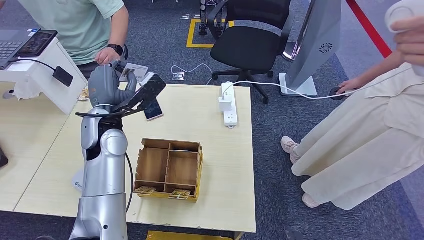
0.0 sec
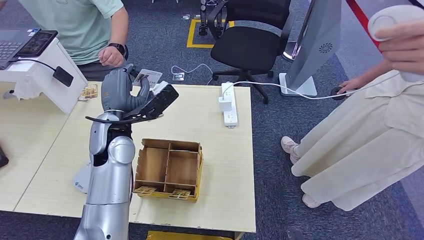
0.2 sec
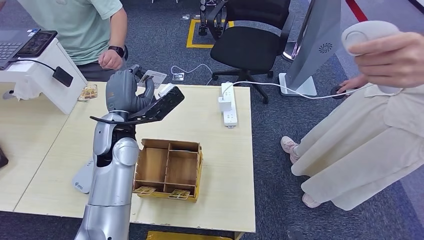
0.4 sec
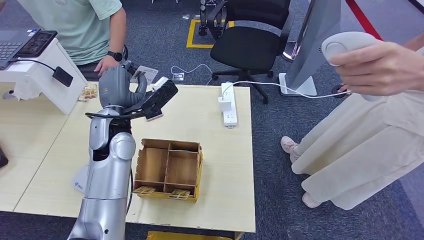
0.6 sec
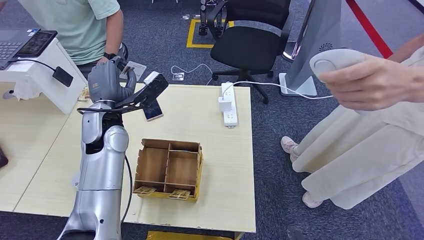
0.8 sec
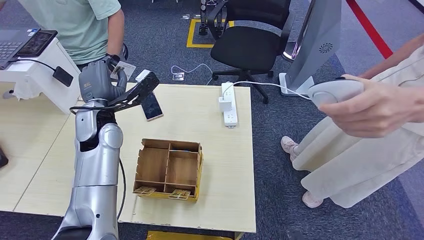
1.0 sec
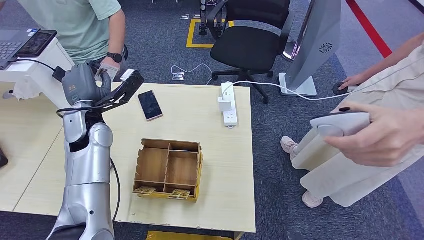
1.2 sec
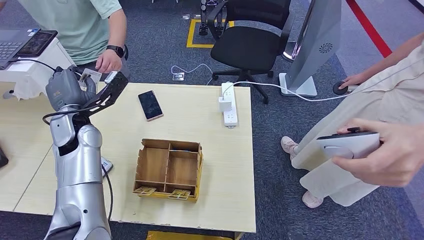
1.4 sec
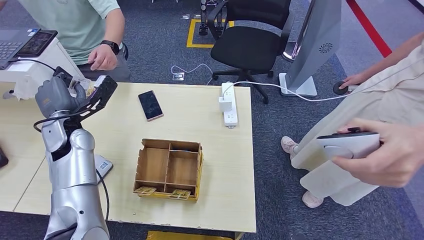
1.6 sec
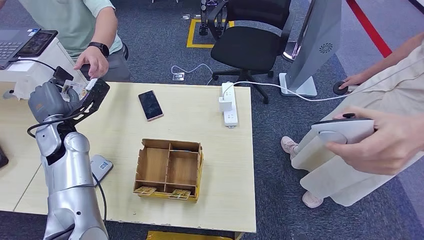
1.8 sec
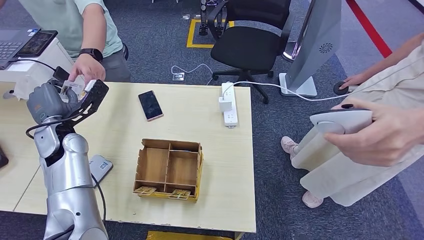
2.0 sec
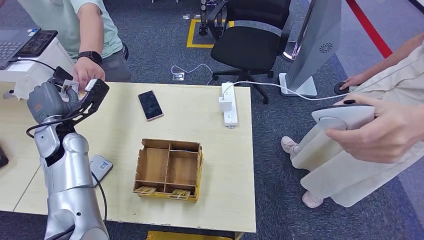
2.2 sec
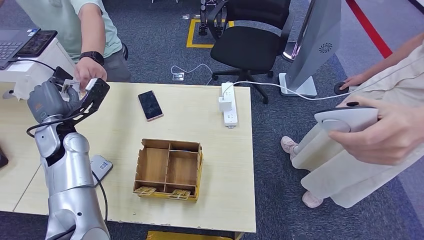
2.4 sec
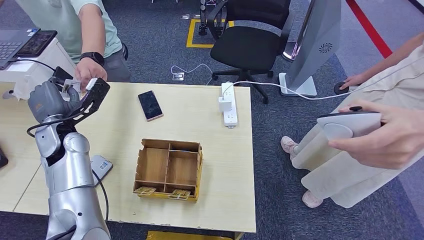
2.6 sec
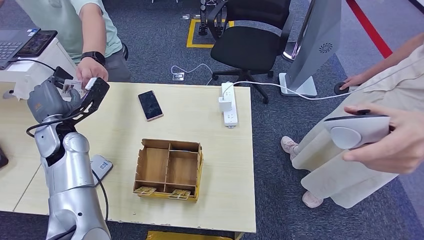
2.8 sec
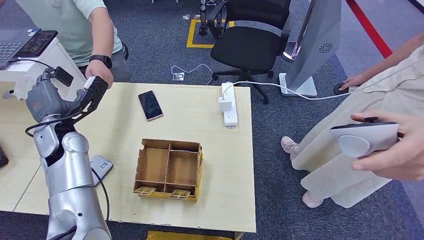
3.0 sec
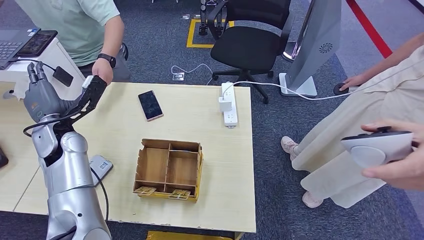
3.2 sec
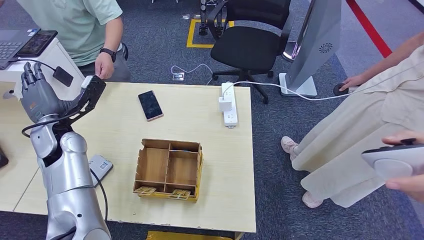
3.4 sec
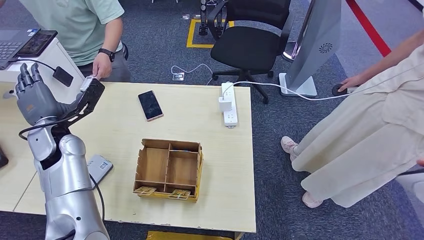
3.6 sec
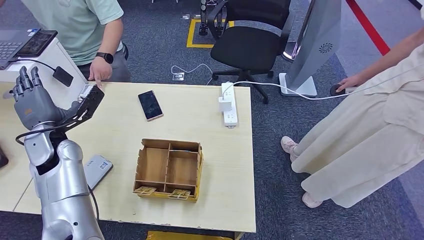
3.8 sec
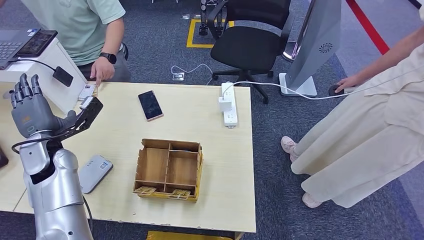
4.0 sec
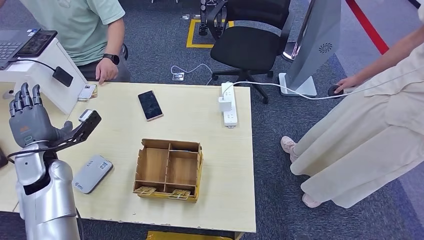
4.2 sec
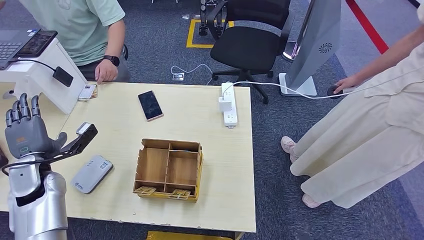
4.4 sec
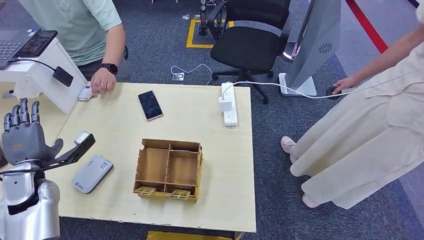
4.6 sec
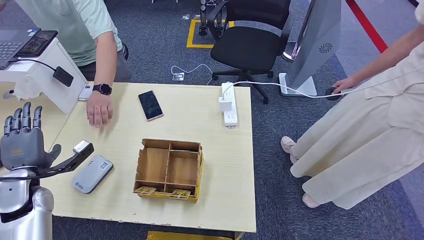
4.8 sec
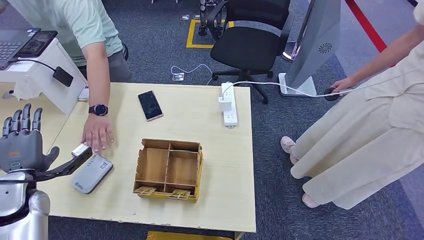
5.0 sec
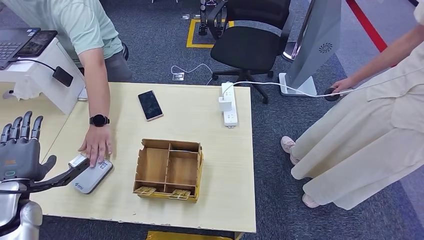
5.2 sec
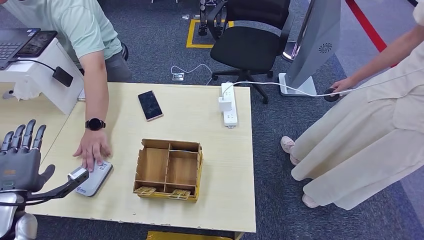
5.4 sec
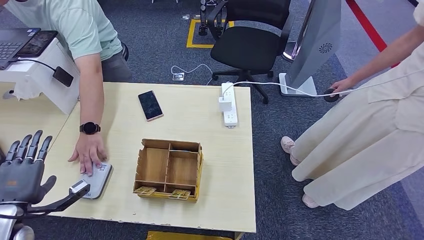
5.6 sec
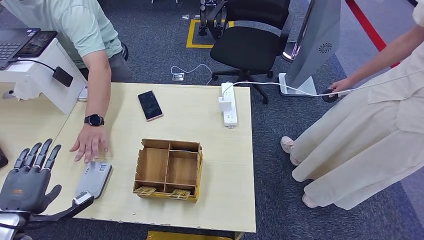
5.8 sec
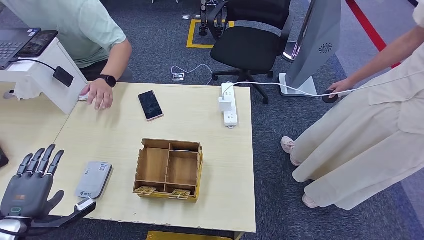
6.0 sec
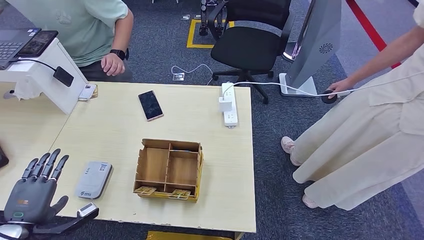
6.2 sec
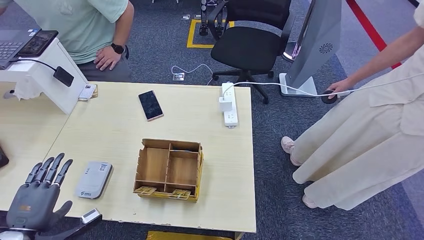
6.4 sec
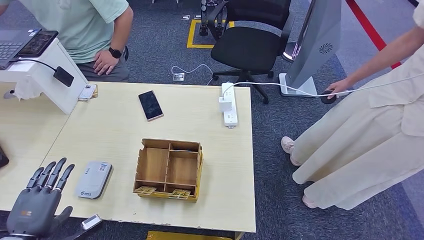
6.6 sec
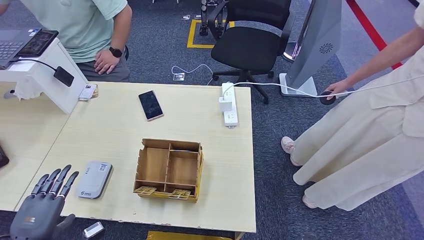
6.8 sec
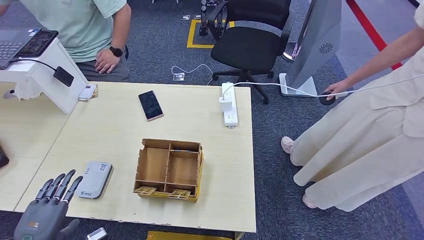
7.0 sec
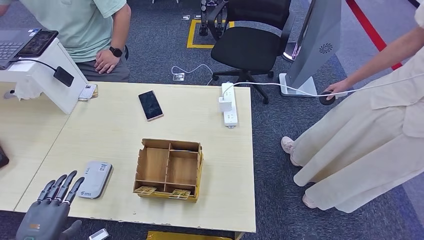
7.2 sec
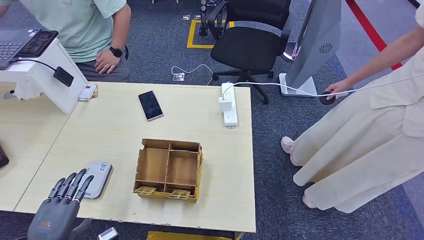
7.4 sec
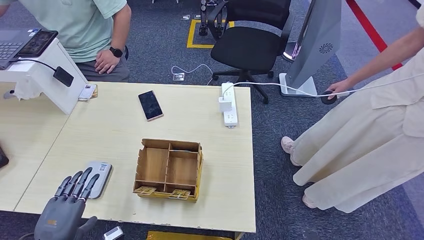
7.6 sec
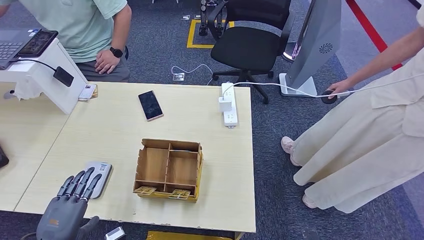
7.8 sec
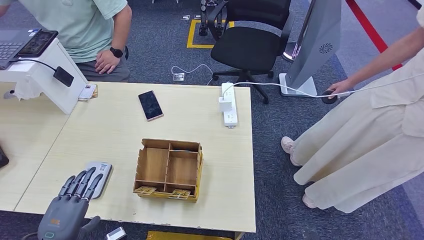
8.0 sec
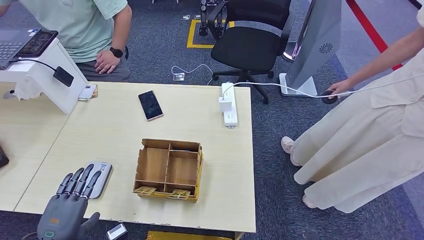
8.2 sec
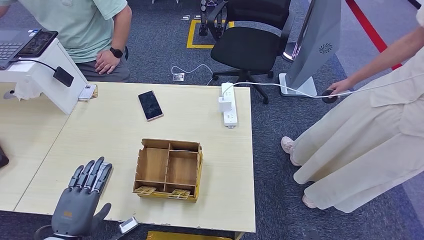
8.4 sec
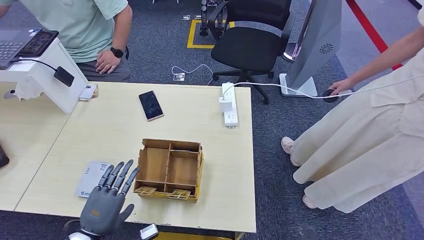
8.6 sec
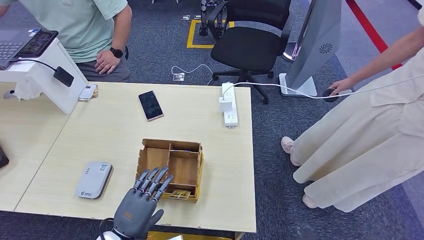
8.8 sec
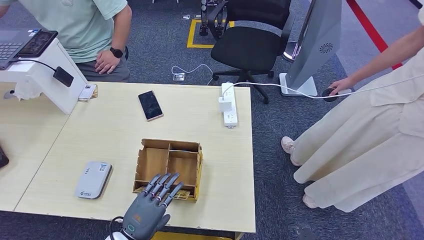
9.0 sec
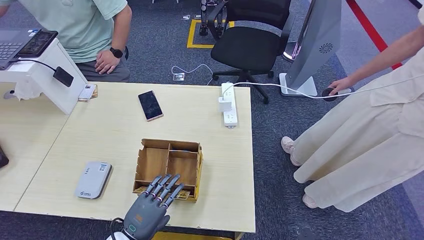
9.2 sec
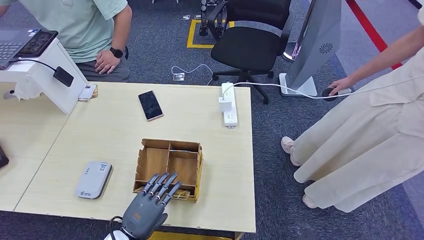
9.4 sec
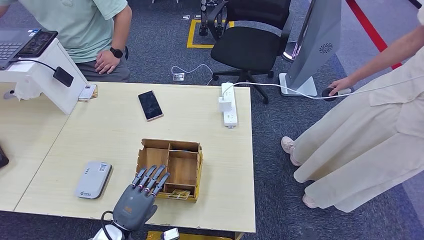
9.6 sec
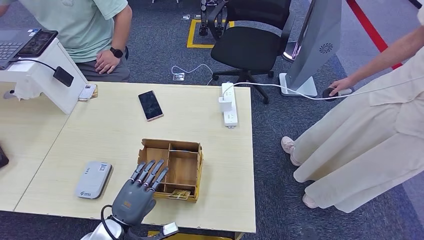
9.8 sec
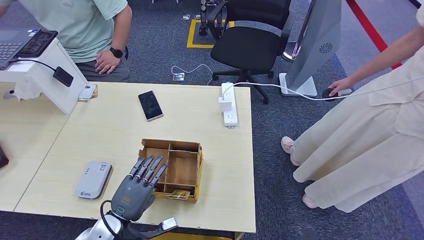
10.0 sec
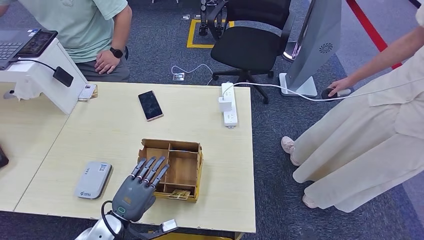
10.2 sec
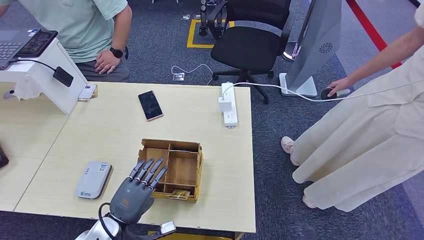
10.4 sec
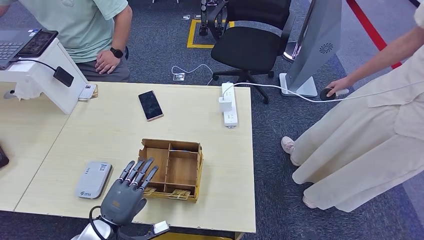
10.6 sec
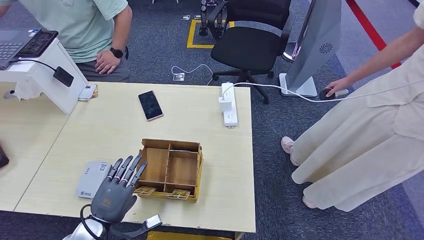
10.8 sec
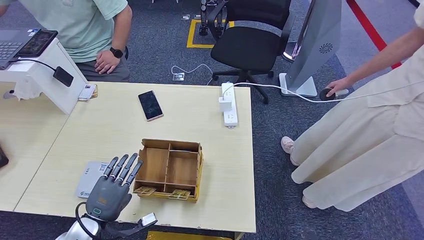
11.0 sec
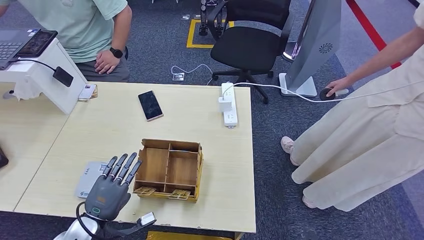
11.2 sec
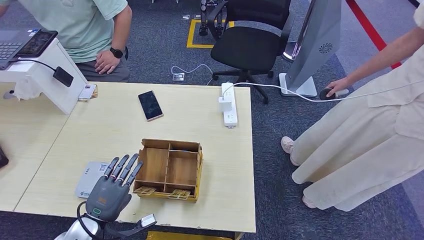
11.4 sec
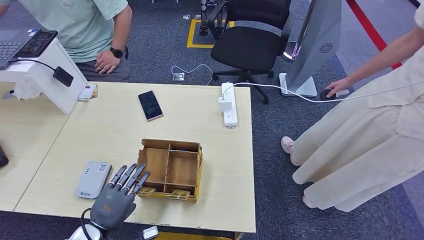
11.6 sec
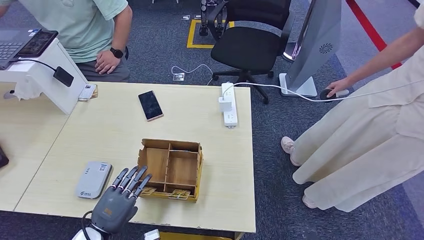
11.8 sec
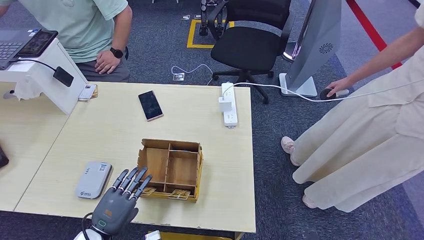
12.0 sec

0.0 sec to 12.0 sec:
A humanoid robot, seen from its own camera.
Step, 0.0 sec to 2.8 sec: Hand the ID card to the person.
1.6 sec to 3.0 sec: The hands move only a little.
3.0 sec to 4.4 sec: The left hand moves backward, downward and to the left, approximately 10 cm.
4.4 sec to 6.0 sec: The left hand moves backward, roughly 15 cm.
6.0 sec to 7.6 sec: The left hand heads to the right, covering about 10 cm.
7.6 sec to 9.0 sec: The left hand is displaced to the right by roughly 15 cm.
9.0 sec to 10.4 sec: The hands stay close to where they were, moving slightly.
10.4 sec to 12.0 sec: The hands stay close to where they were, moving slightly.

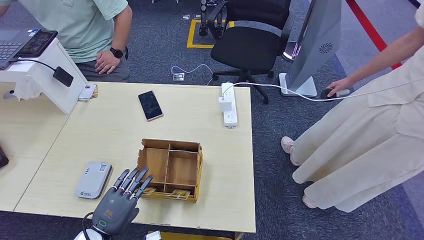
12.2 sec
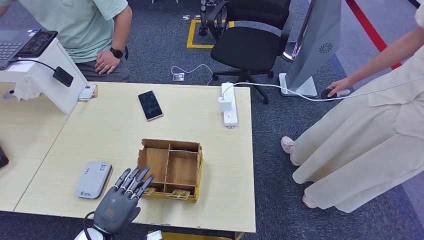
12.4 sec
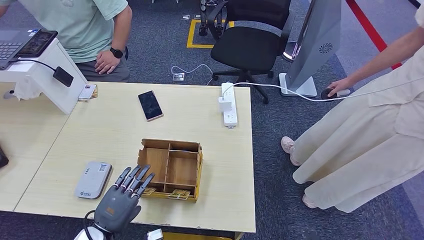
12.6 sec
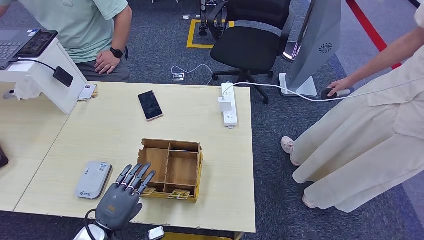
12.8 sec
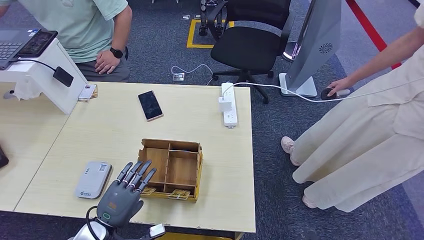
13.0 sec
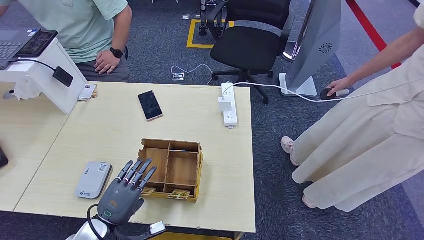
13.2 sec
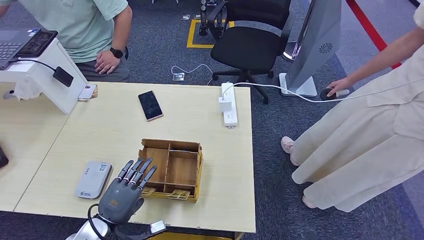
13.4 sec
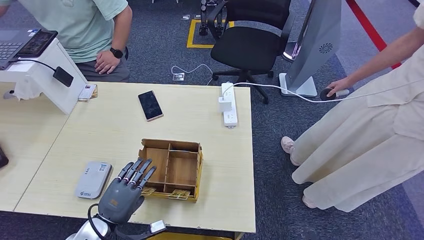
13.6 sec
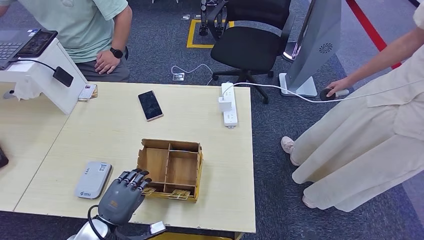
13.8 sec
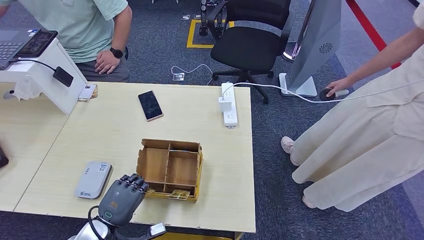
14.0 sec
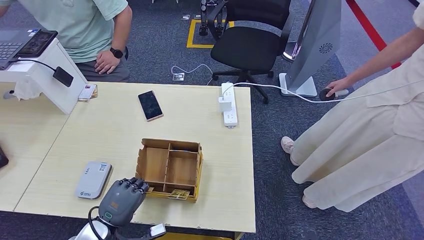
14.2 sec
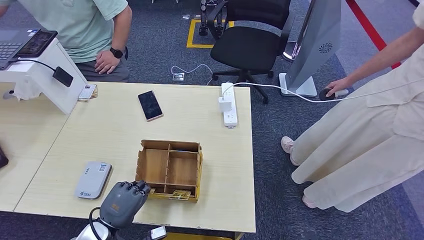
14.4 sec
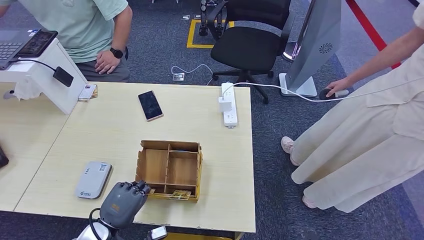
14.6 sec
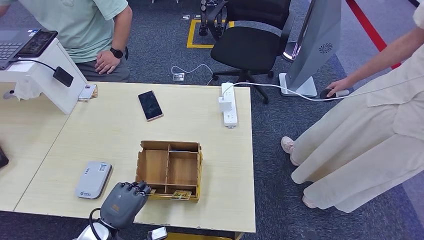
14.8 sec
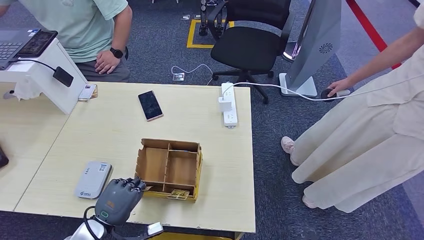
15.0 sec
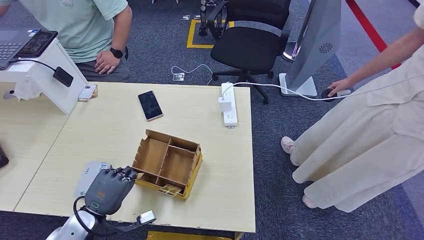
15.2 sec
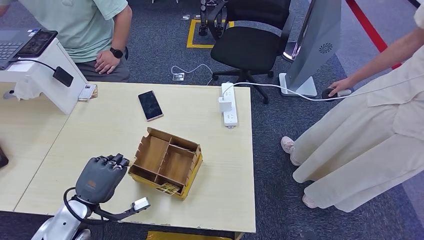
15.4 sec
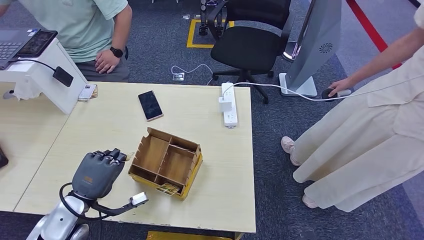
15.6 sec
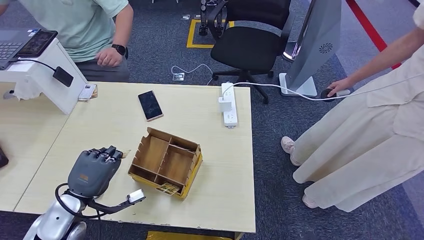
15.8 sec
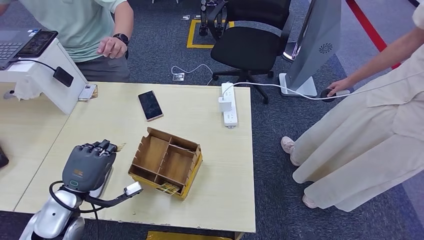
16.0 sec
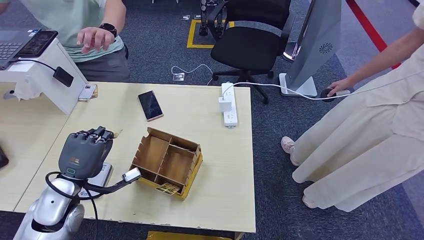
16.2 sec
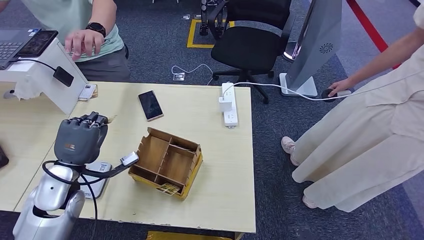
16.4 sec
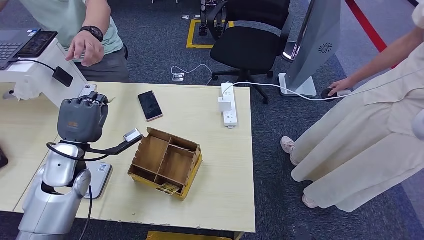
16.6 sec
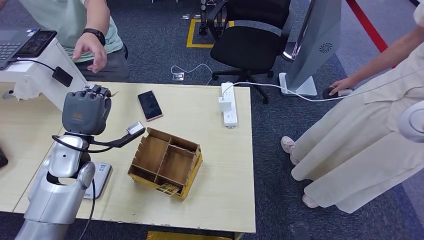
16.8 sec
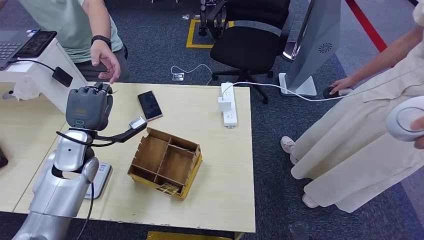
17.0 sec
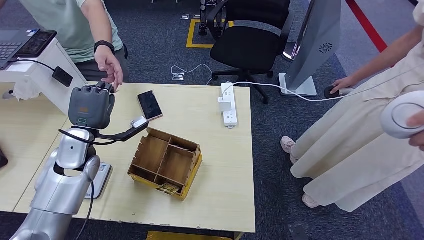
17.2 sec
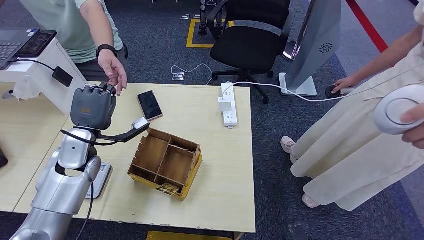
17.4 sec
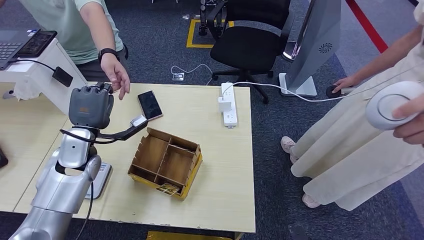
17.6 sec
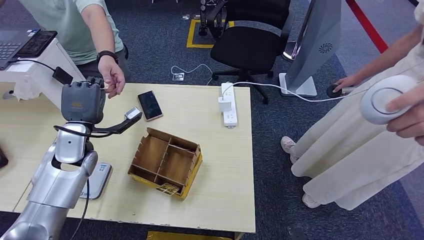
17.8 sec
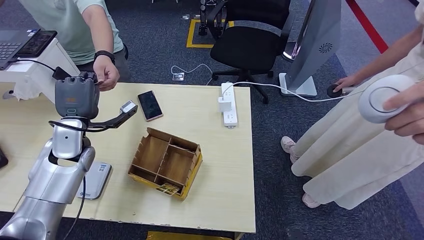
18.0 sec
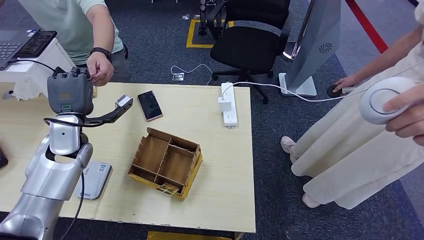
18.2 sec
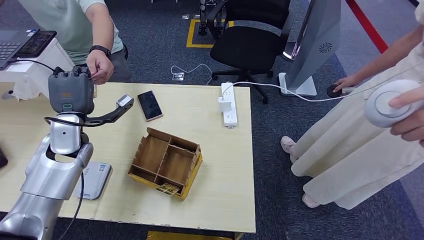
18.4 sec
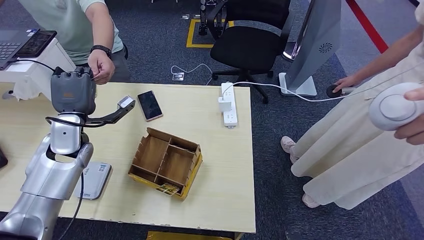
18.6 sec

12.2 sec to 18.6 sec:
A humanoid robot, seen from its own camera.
Step, 12.2 sec to 14.6 sec: Pick up the room key from the key card box.
Step, 14.8 sec to 18.6 sec: Hand the room key to the person.
12.2 sec to 13.8 sec: The hands move only a little.
13.8 sec to 15.4 sec: The left hand shifts by approximately 5 cm.
15.4 sec to 17.0 sec: The left hand moves forward and upward, roughly 15 cm.
17.0 sec to 18.6 sec: The hands make only small movements.
